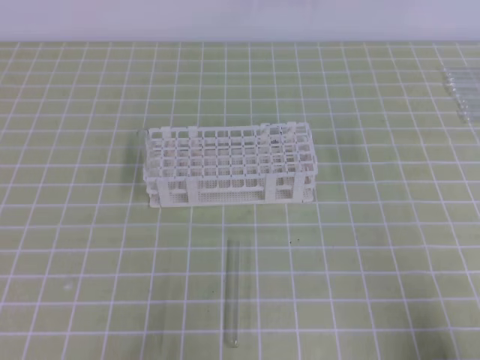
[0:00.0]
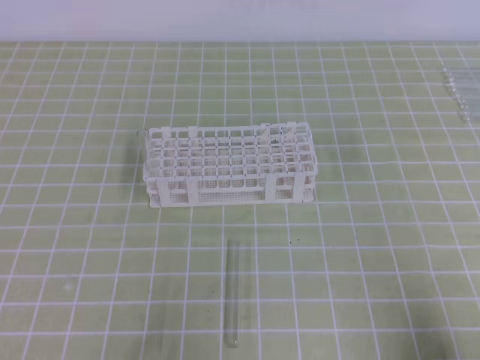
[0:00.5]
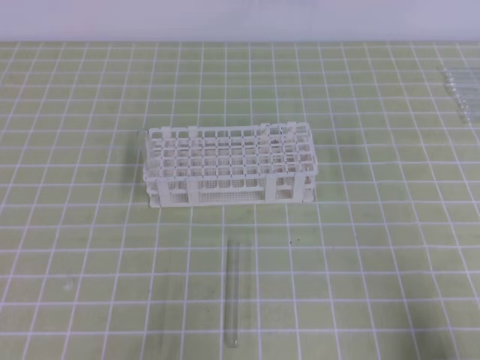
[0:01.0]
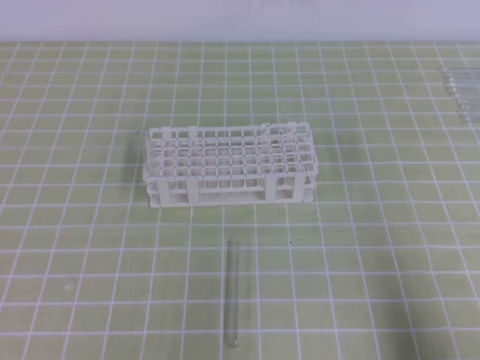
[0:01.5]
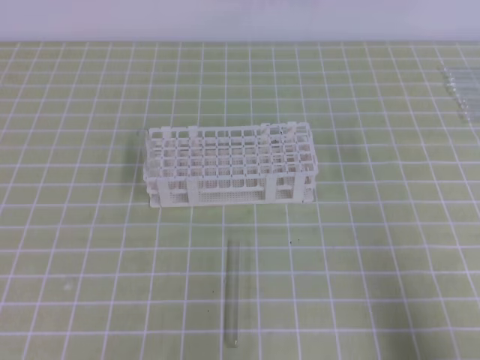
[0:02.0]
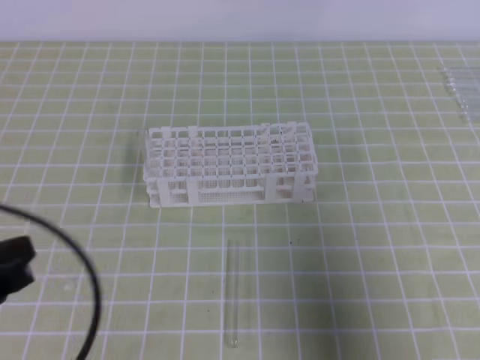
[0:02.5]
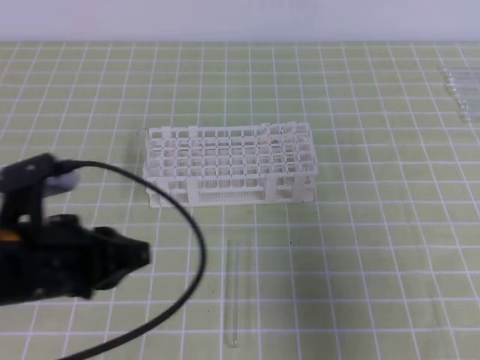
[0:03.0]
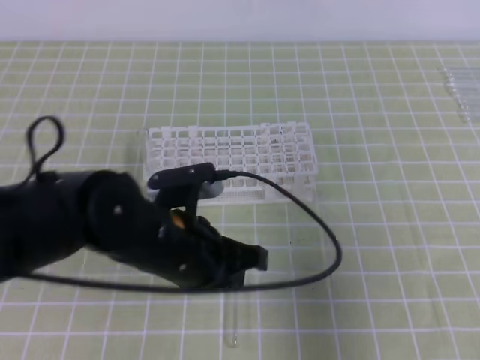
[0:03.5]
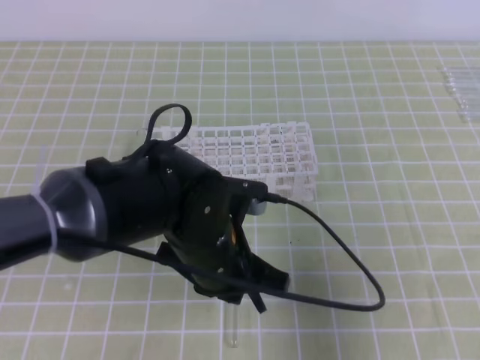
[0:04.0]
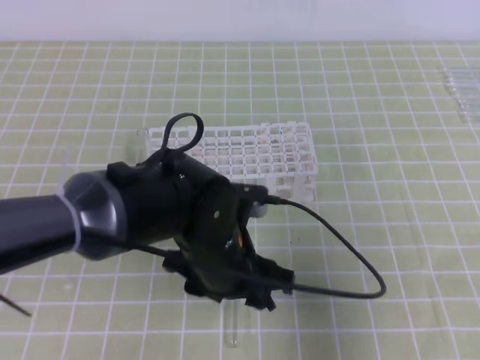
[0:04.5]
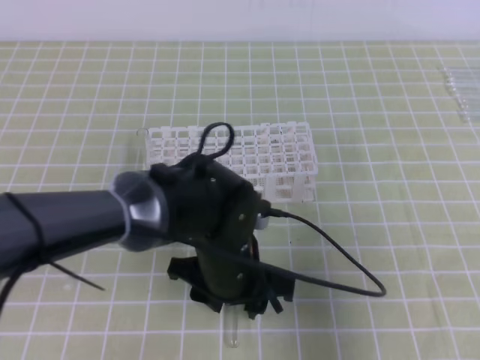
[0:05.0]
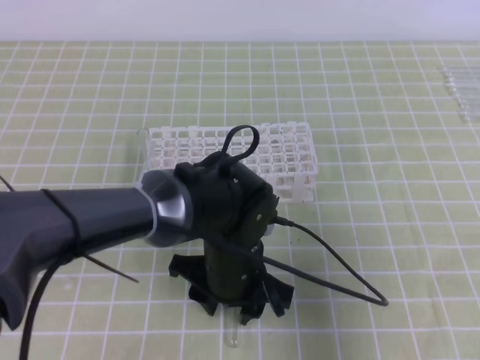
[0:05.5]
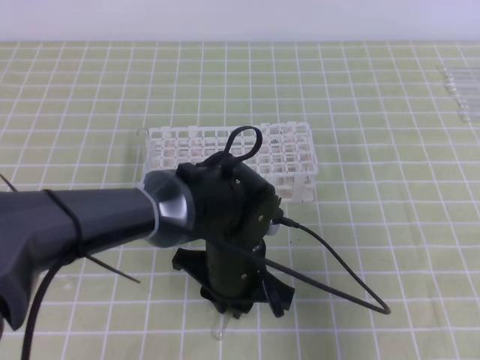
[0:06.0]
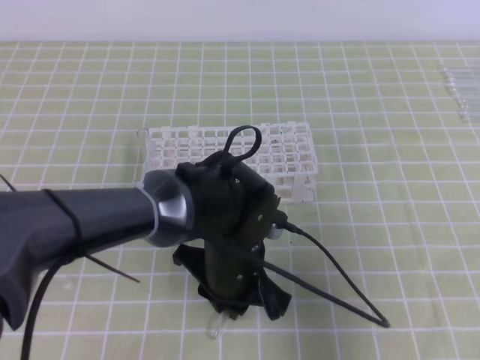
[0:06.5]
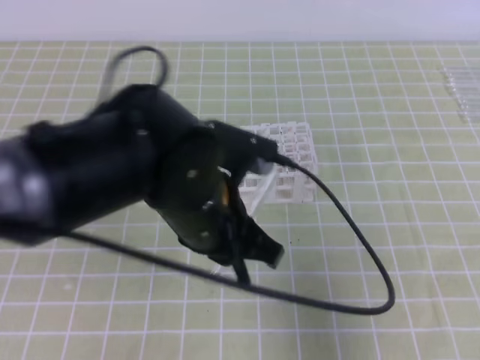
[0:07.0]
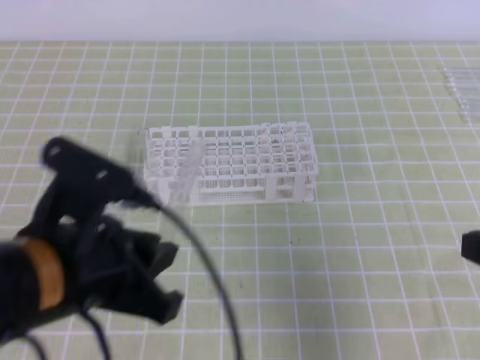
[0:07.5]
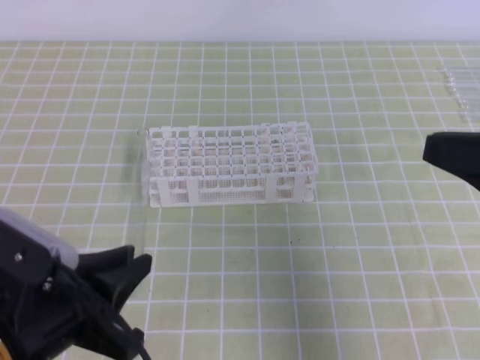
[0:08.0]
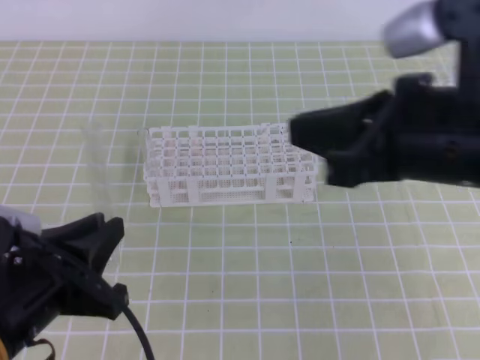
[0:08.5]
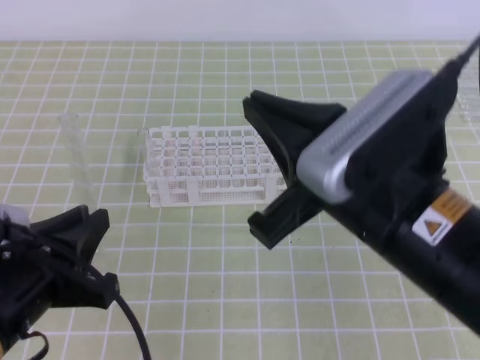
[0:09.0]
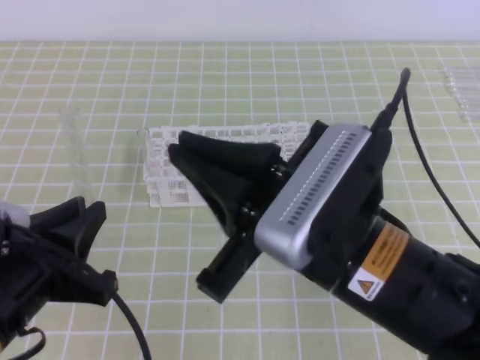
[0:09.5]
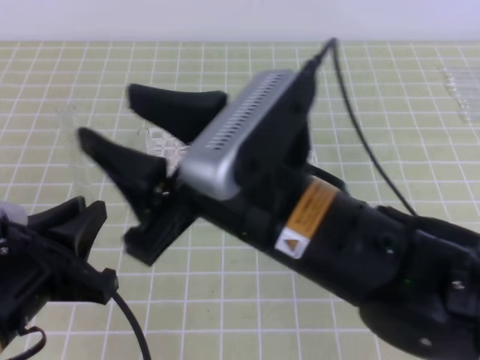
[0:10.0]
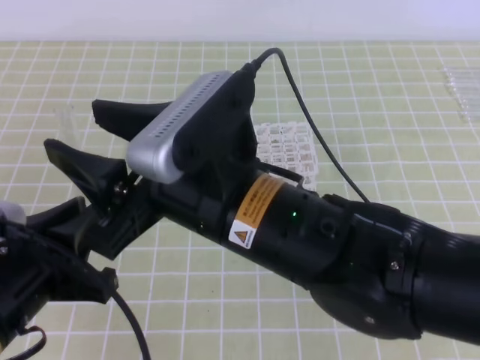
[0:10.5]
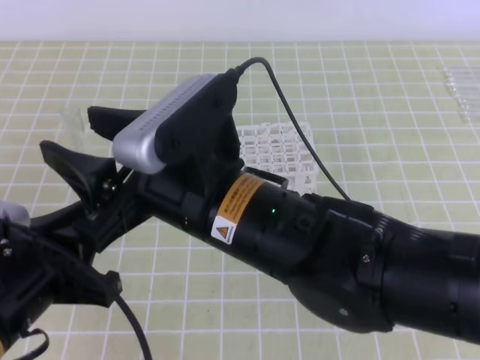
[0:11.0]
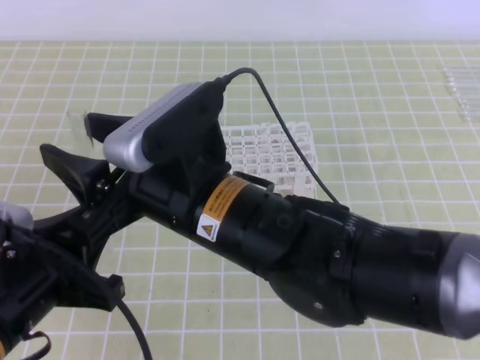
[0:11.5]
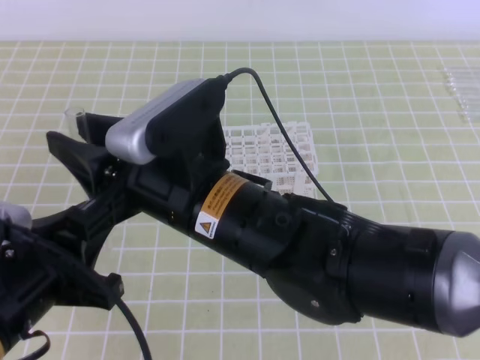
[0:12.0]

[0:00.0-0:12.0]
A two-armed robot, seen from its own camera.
0:02.0 to 0:04.0: The right gripper heads upward and forward, covering approximately 10 cm, while the left gripper heads to the right and forward, covering some 30 cm.
0:04.0 to 0:06.0: The left gripper is displaced downward by approximately 5 cm, and opens and closes again.
0:06.0 to 0:08.0: The left gripper moves to the left, backward and upward, some 25 cm. The right gripper goes approximately 5 cm upward.
0:08.0 to 0:10.0: The right gripper moves to the left, some 20 cm, and opens up.
0:10.0 to 0:12.0: The right gripper moves to the left, approximately 5 cm, and closes up.

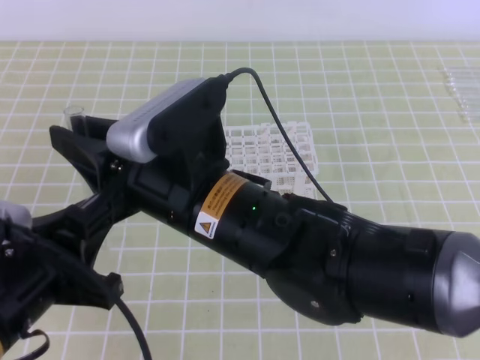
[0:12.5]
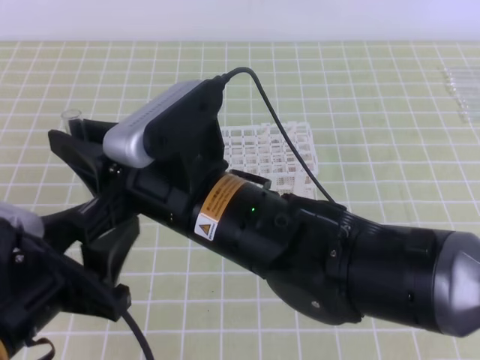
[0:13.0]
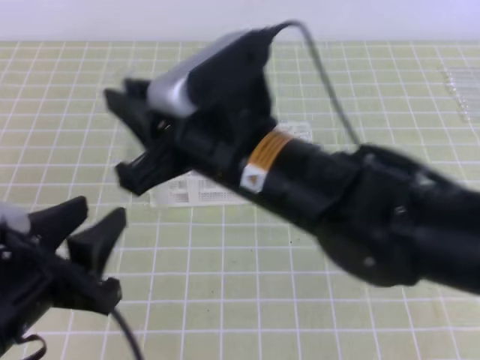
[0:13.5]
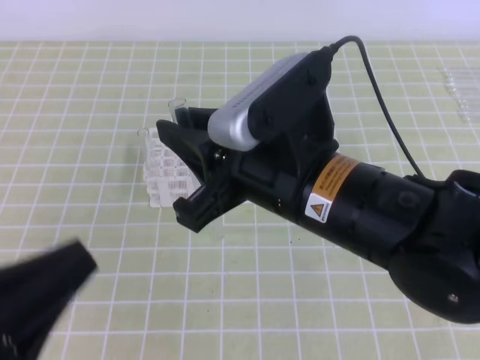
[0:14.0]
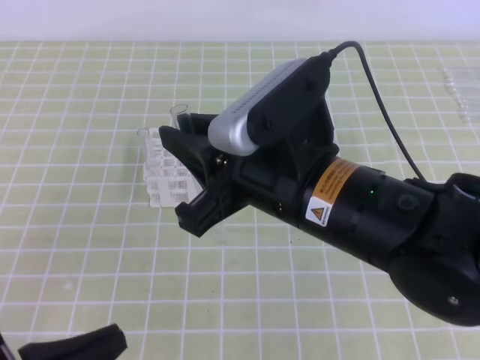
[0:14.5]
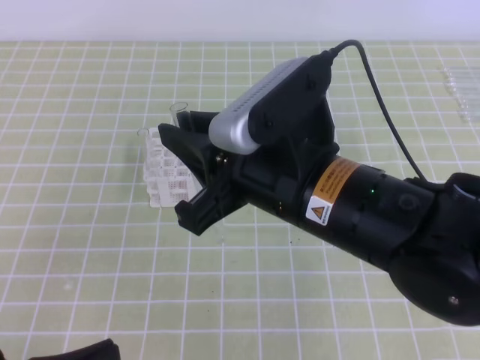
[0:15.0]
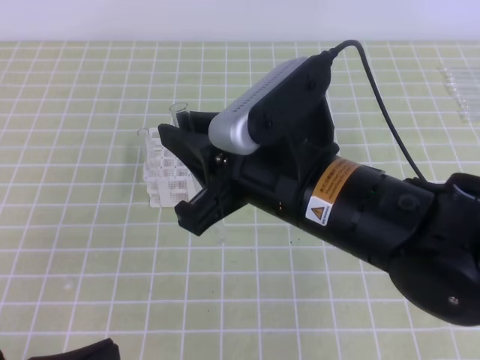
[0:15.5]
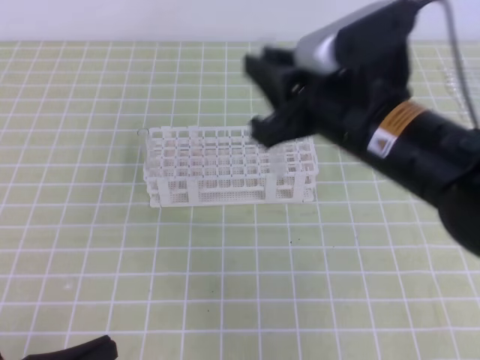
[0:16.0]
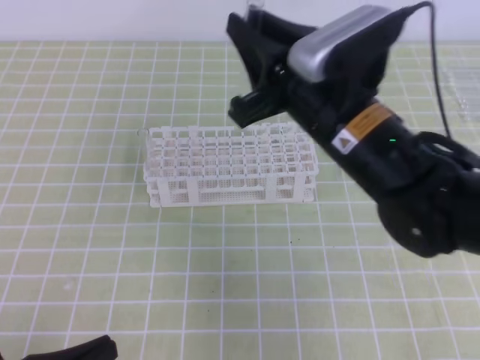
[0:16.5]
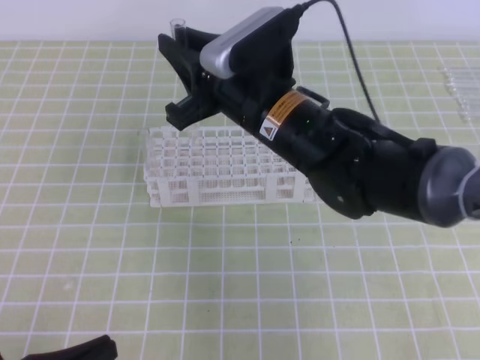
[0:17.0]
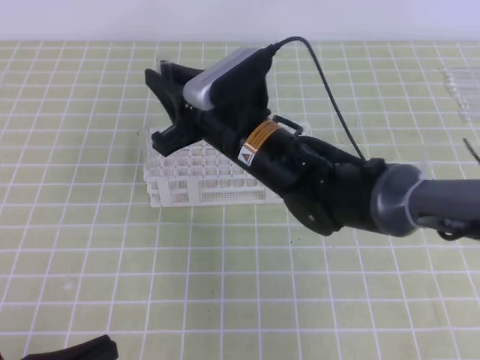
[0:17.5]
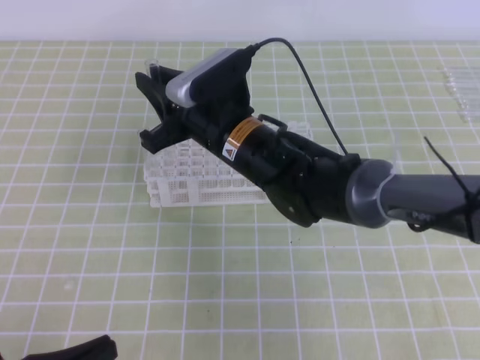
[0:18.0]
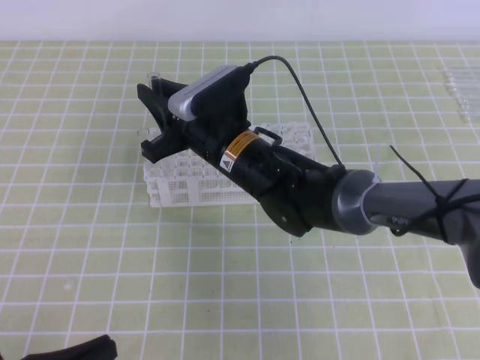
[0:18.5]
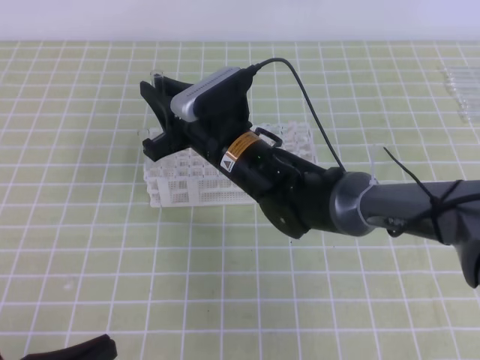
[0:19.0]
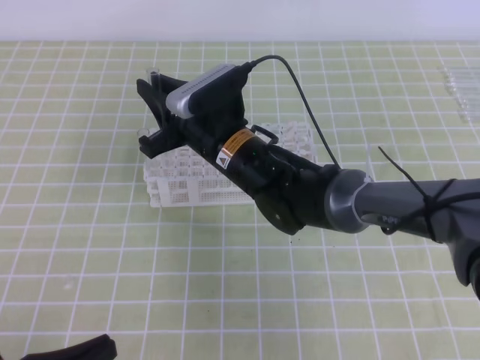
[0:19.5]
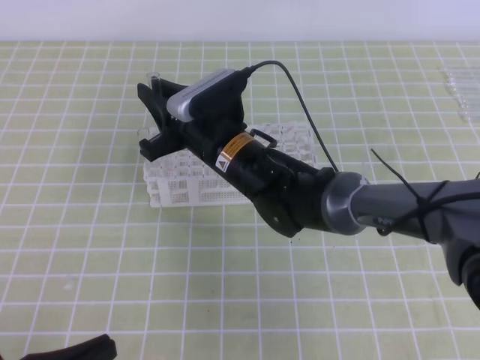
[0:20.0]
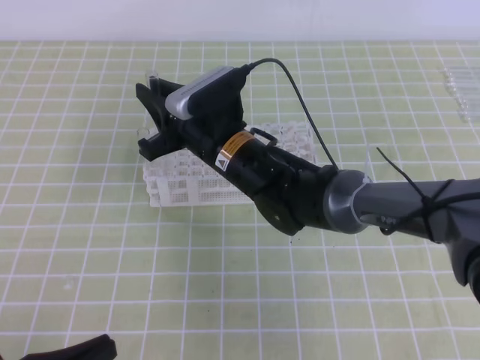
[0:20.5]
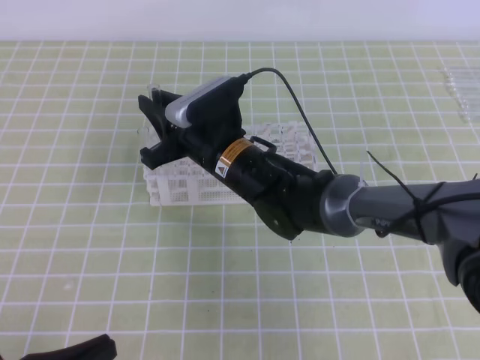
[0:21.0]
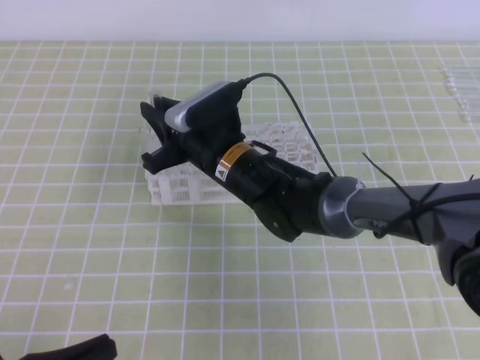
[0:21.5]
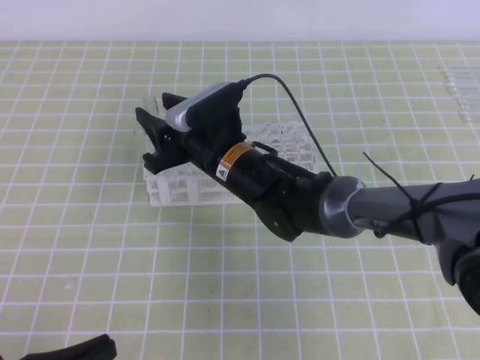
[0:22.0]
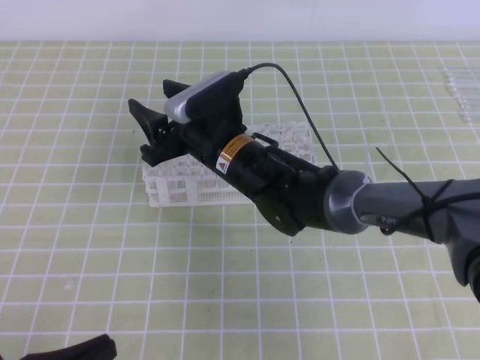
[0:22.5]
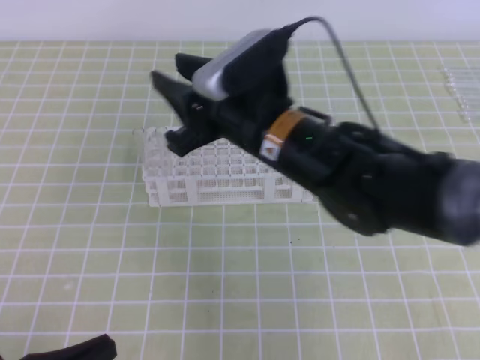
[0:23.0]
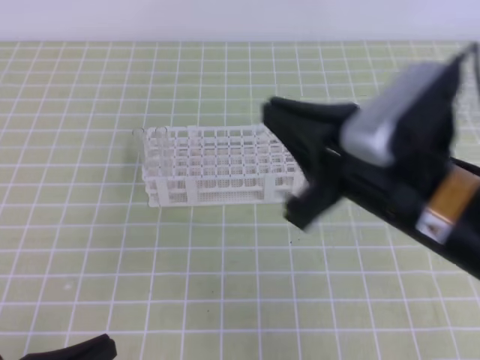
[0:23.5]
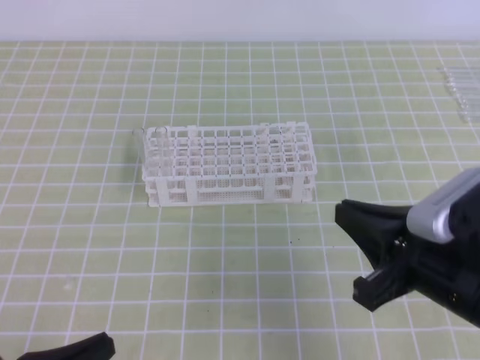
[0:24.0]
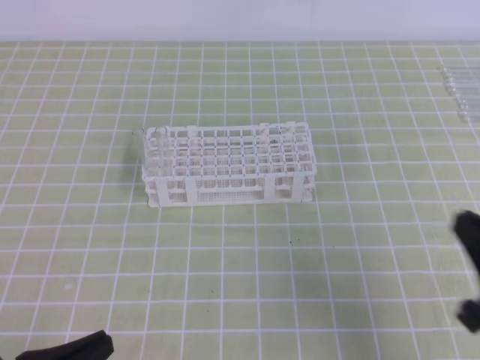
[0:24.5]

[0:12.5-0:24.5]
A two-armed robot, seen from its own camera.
0:12.5 to 0:14.5: The right gripper is displaced to the right by roughly 10 cm; the left gripper shifts roughly 5 cm backward, and opens, then closes once more.
0:14.5 to 0:16.5: The right gripper heads forward, covering about 10 cm.
0:16.5 to 0:18.5: The right gripper shifts some 15 cm to the left, downward and forward.
0:18.5 to 0:20.5: The grippers stay close to where they were, moving slightly.
0:20.5 to 0:22.5: The right gripper opens.
0:22.5 to 0:24.5: The right gripper travels to the right and backward by approximately 35 cm, and closes its fingers.

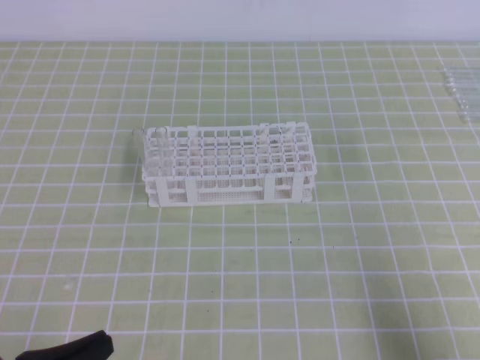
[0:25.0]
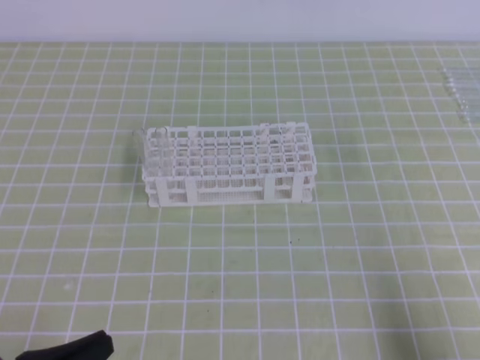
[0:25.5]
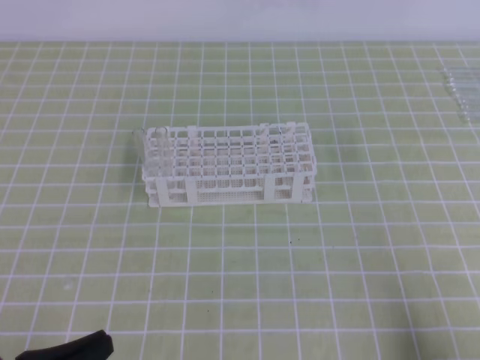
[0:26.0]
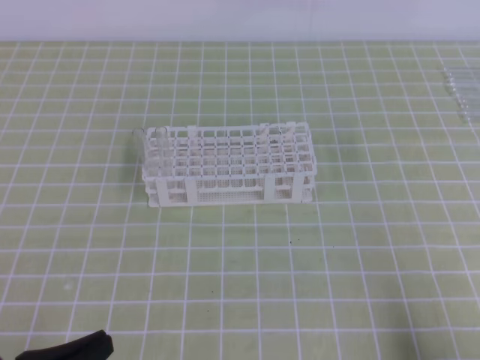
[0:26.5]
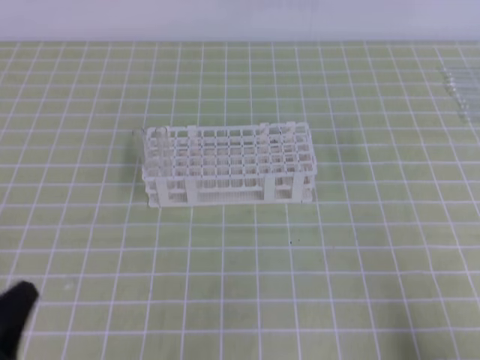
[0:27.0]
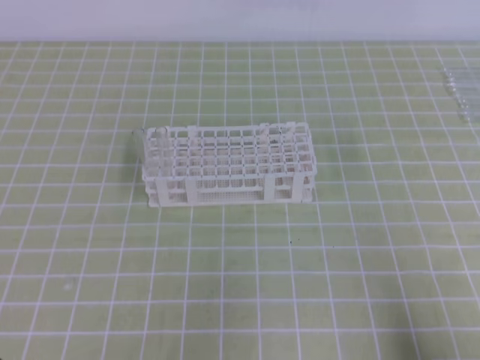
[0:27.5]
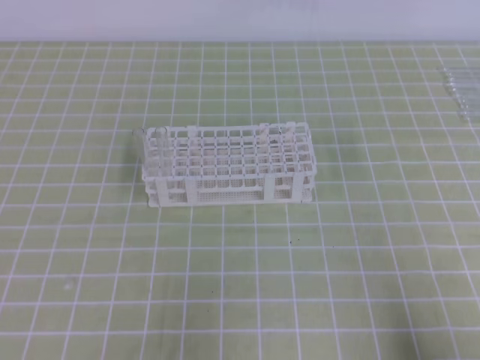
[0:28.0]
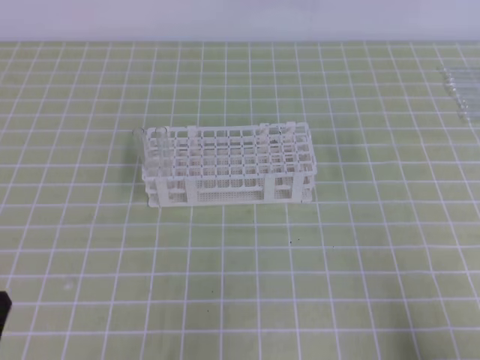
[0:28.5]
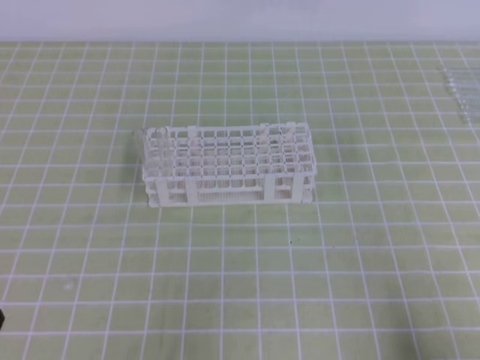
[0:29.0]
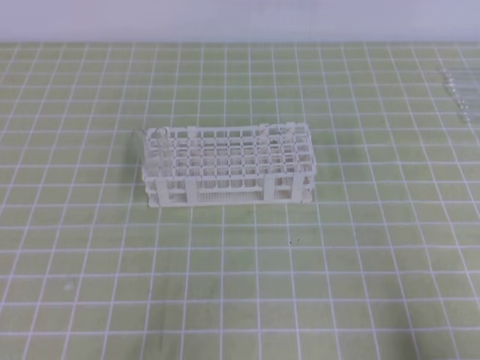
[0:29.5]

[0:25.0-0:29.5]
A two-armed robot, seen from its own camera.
0:25.0 to 0:27.0: There are only small adjustments of the grippers.
